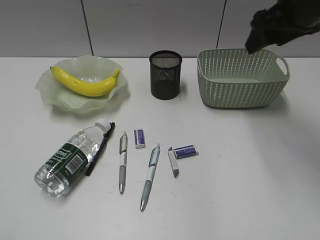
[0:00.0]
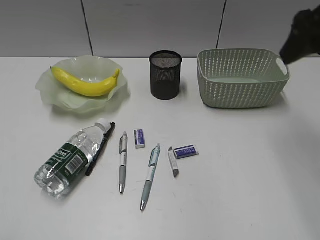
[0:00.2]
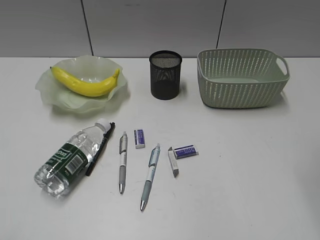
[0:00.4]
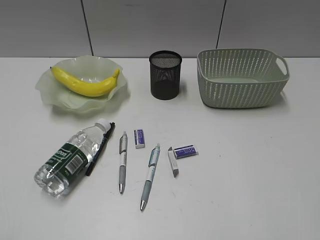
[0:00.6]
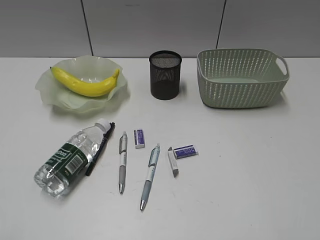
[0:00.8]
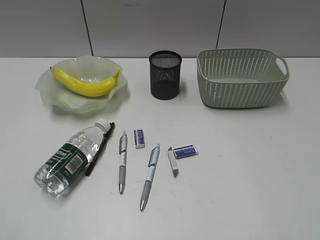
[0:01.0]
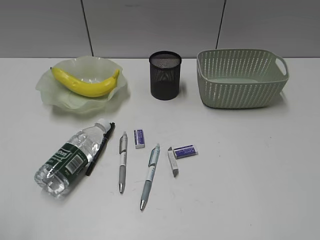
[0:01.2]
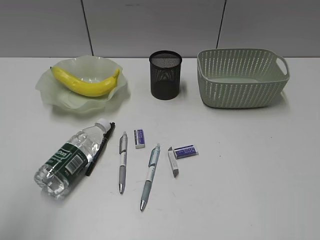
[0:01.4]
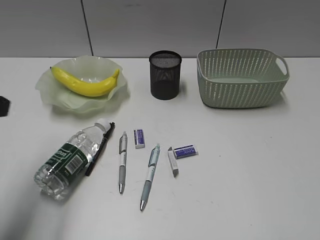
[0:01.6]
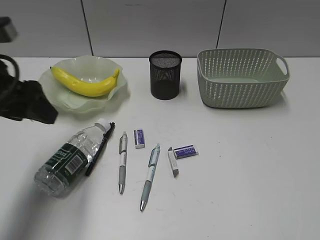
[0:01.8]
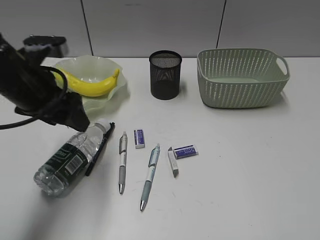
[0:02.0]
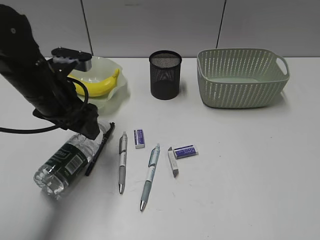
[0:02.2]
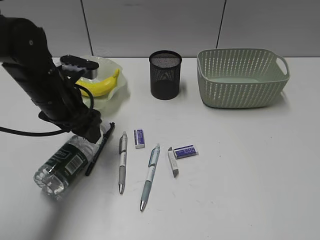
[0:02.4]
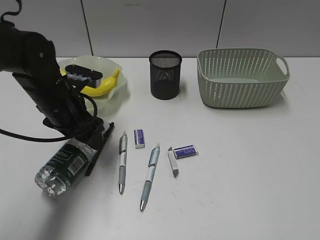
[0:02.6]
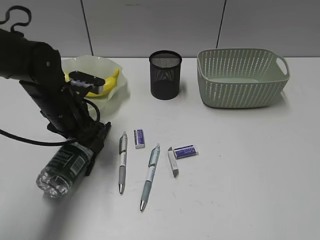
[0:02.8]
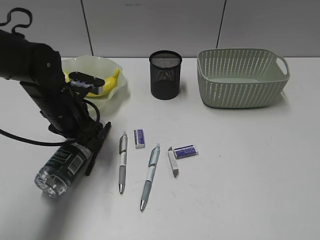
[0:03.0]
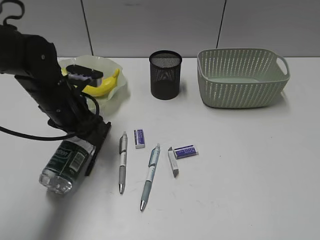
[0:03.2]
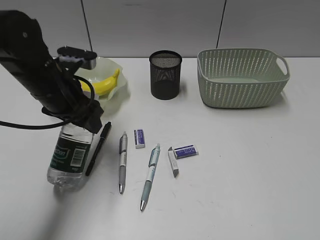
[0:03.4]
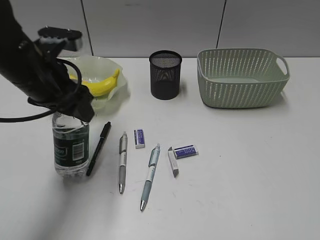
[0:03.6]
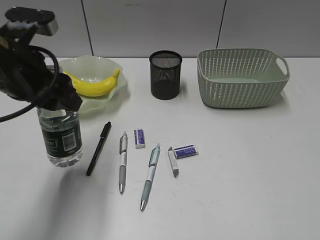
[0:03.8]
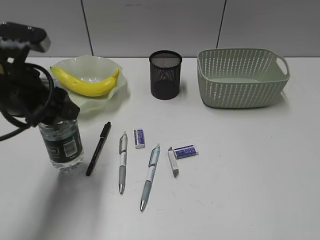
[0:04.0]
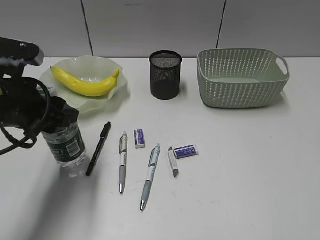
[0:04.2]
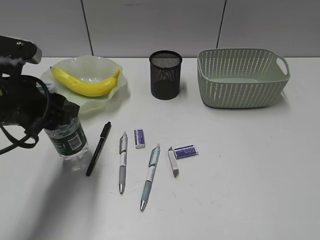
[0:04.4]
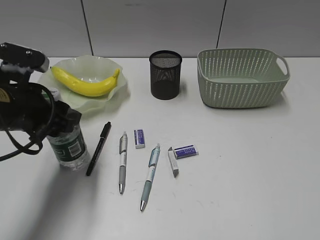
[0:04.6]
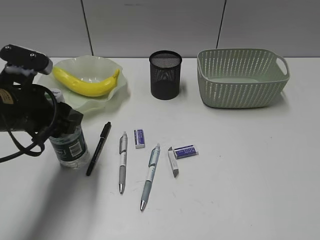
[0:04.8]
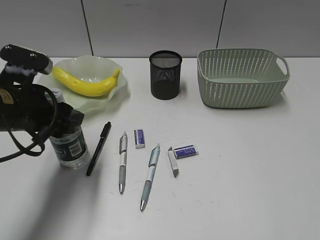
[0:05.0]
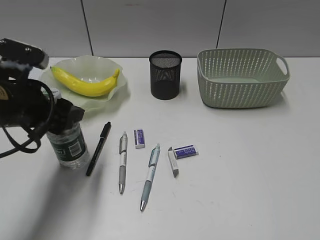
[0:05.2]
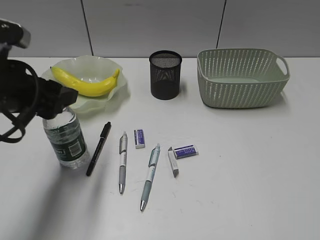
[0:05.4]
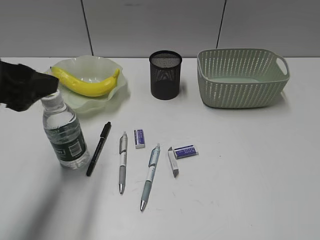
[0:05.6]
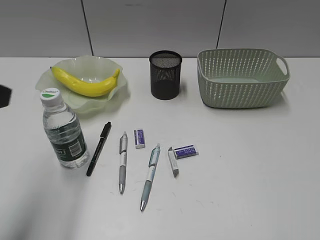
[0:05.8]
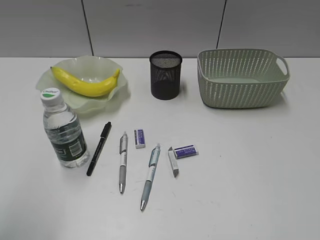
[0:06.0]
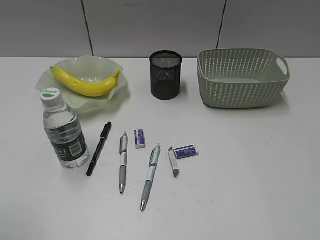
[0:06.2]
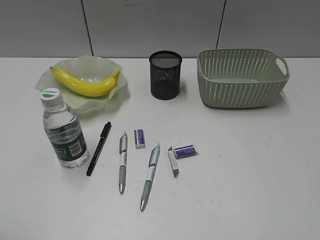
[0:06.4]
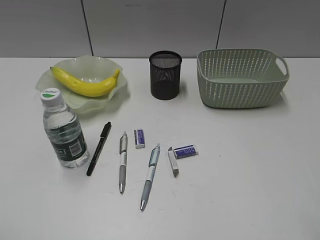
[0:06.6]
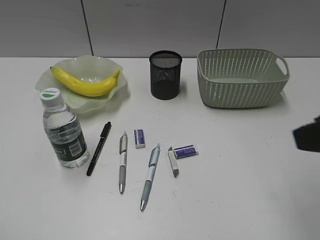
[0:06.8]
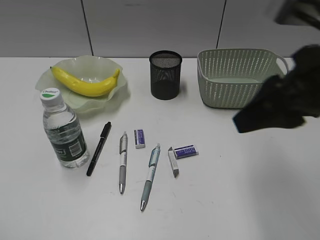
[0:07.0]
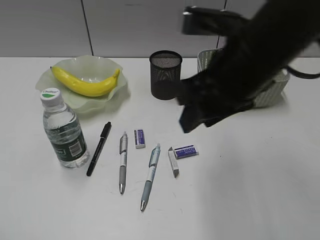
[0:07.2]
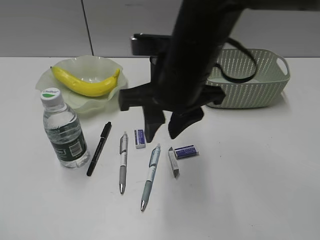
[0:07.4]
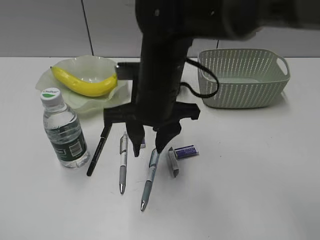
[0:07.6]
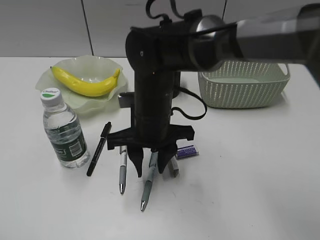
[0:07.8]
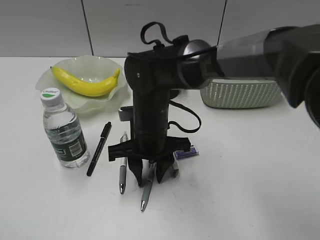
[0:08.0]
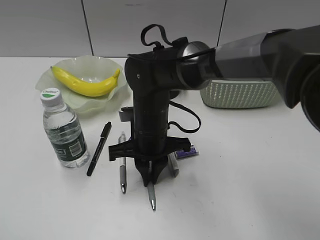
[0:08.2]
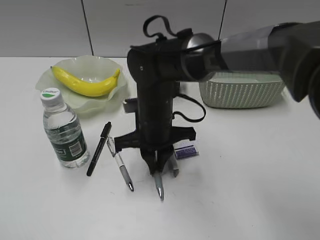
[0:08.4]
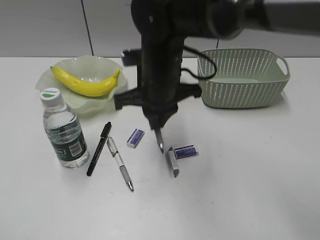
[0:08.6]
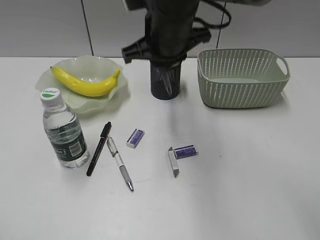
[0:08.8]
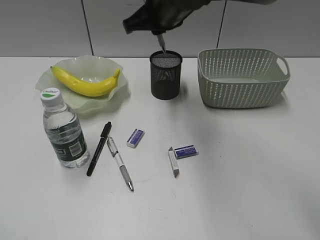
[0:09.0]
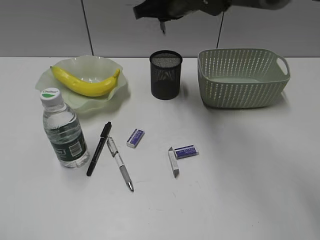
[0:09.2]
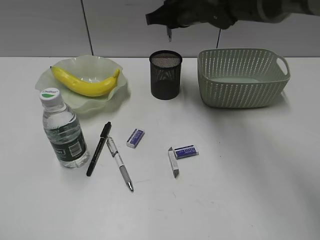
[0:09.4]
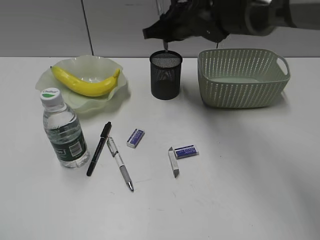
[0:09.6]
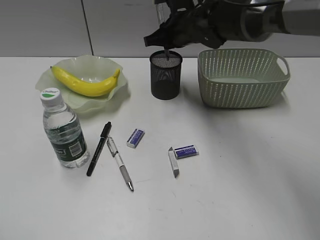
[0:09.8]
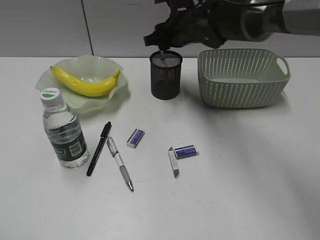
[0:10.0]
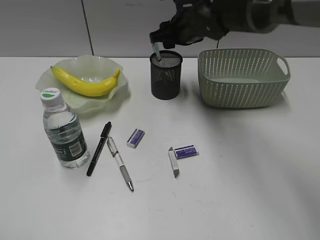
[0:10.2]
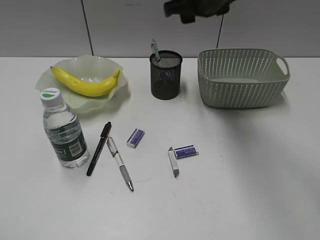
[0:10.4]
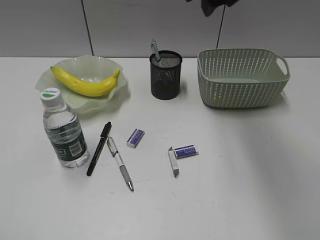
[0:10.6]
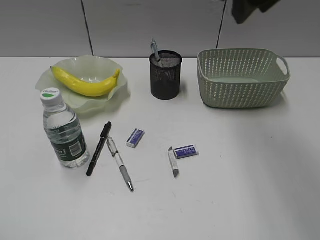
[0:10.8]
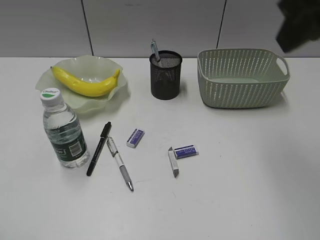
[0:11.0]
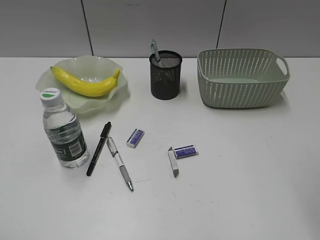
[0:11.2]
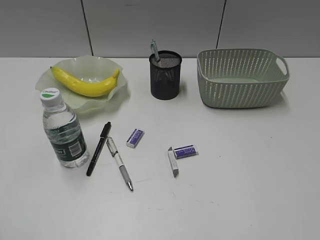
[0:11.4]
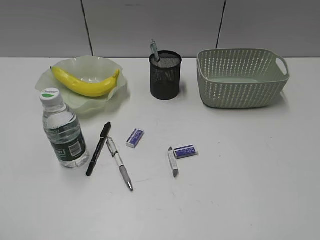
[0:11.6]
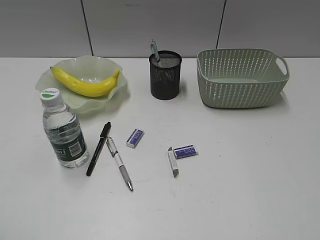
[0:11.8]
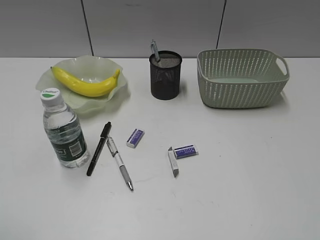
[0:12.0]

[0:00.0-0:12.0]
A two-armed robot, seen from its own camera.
Step, 0.0 to 2.8 s: Grasp the bottle with left gripper.
Step, 3.0 to 5.6 s: Stand the bottle with left gripper.
Step, 5.8 to 8.2 s: Grasp the blue pen with right gripper.
Step, 8.4 to 10.2 s: Place the blue pen in pen holder with right gripper.
0.0 to 1.6 s: The right gripper travels backward by some 35 cm; the left gripper shifts approximately 20 cm forward.
1.6 to 3.0 s: The left gripper moves downward, forward and to the right, approximately 25 cm.
3.0 to 4.4 s: The left gripper goes some 10 cm backward and upward.
4.4 to 6.0 s: The left gripper shifts approximately 20 cm backward, upward and to the left.
6.0 to 7.6 s: The right gripper is displaced to the left and forward by some 40 cm, and closes. The left gripper heads backward, covering roughly 10 cm.
7.6 to 9.0 s: The right gripper is displaced forward and upward by roughly 10 cm, and closes up.
9.0 to 10.4 s: The right gripper shifts some 5 cm to the right, and opens.
10.4 to 12.0 s: The right gripper shifts about 50 cm backward and to the right.

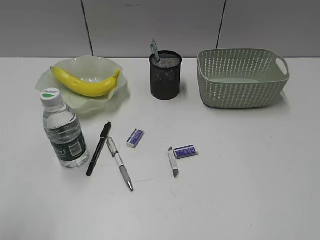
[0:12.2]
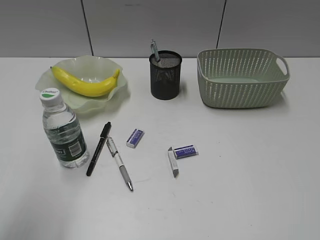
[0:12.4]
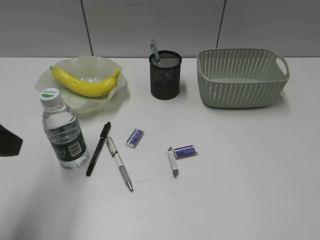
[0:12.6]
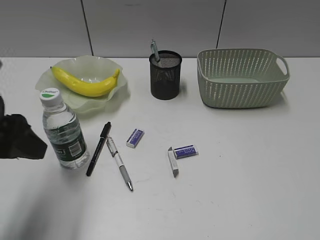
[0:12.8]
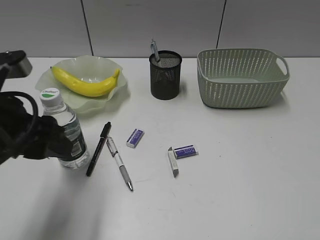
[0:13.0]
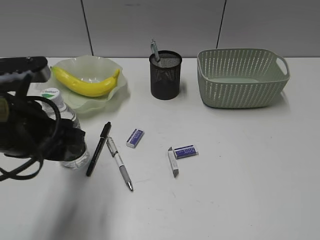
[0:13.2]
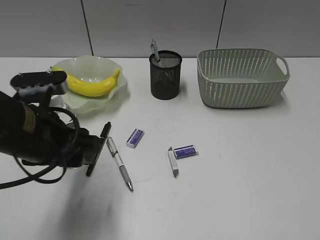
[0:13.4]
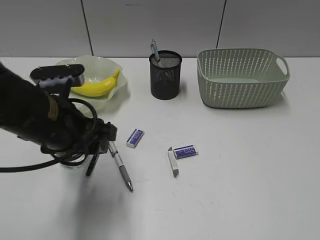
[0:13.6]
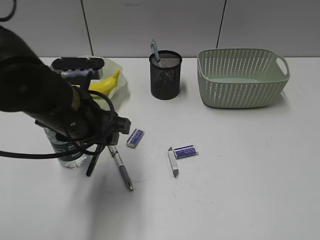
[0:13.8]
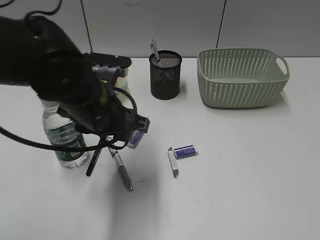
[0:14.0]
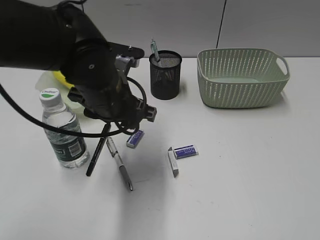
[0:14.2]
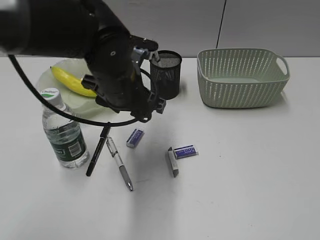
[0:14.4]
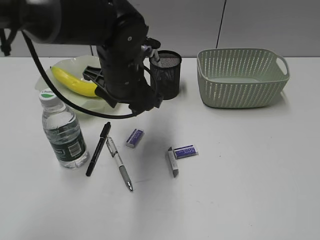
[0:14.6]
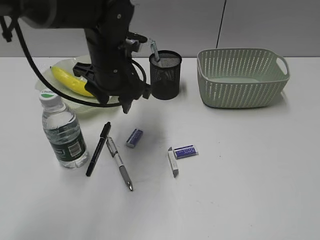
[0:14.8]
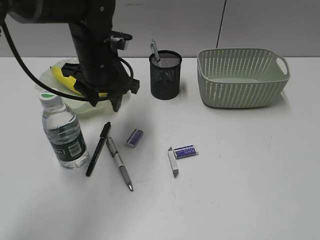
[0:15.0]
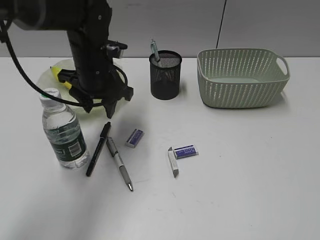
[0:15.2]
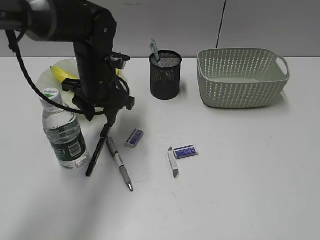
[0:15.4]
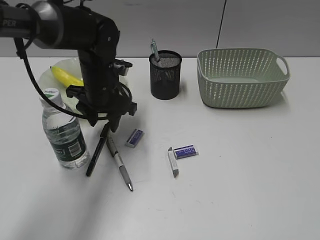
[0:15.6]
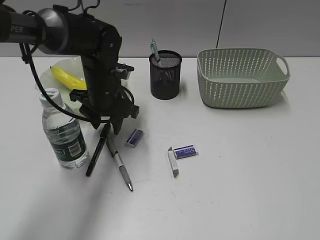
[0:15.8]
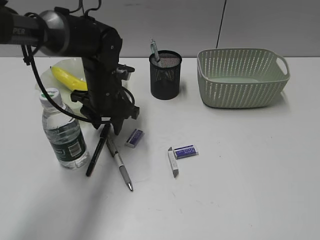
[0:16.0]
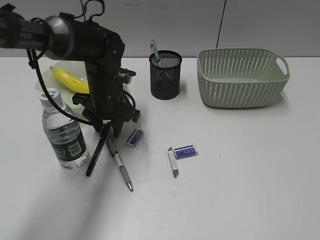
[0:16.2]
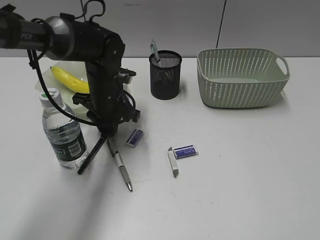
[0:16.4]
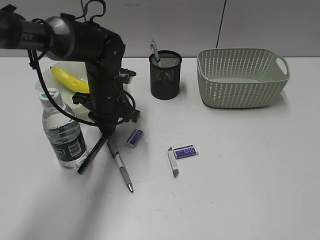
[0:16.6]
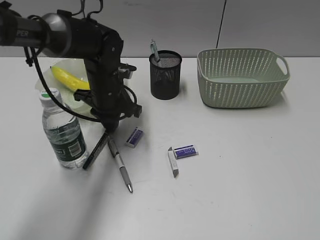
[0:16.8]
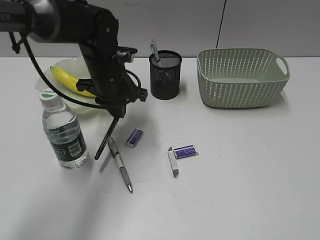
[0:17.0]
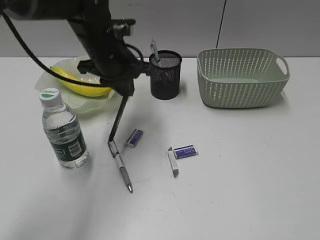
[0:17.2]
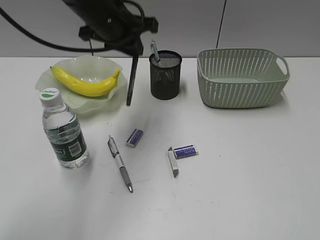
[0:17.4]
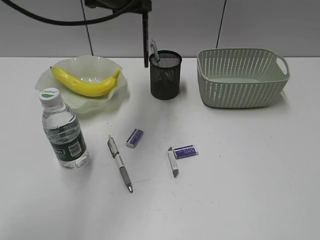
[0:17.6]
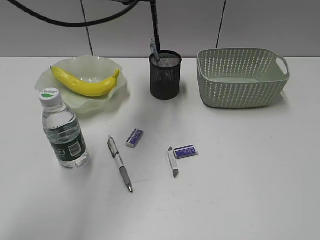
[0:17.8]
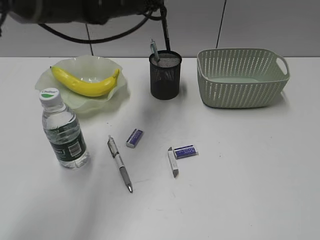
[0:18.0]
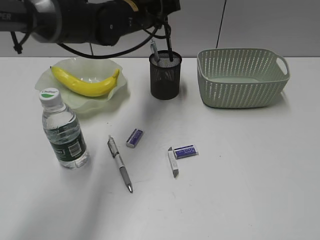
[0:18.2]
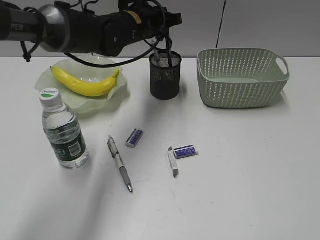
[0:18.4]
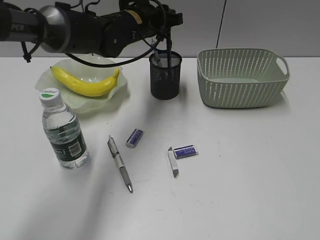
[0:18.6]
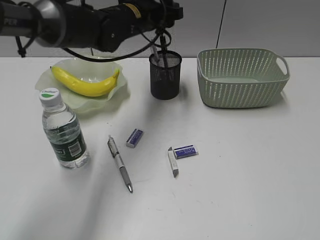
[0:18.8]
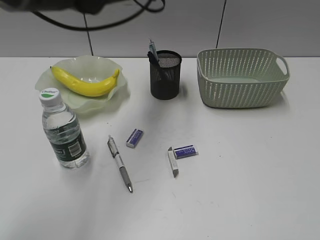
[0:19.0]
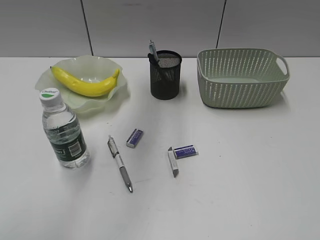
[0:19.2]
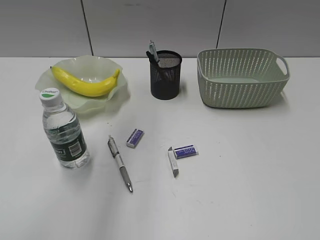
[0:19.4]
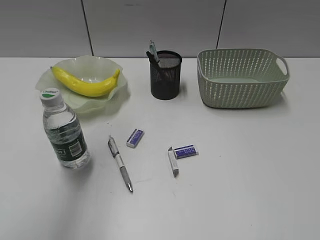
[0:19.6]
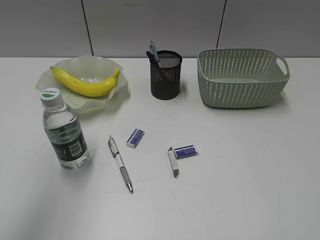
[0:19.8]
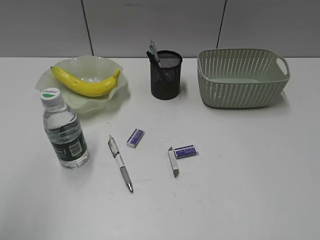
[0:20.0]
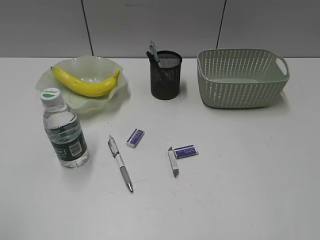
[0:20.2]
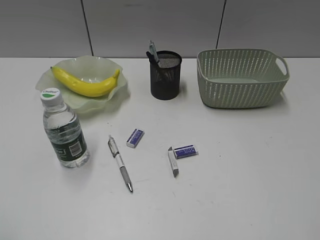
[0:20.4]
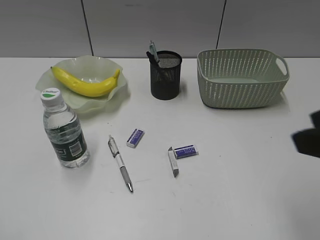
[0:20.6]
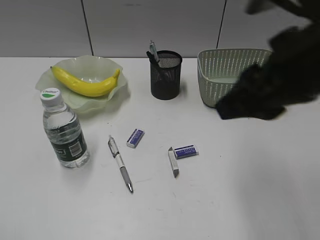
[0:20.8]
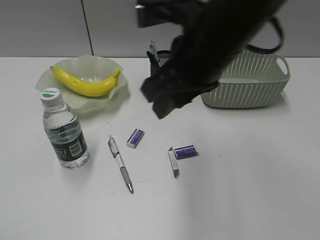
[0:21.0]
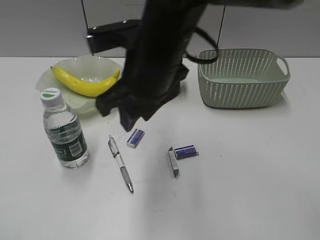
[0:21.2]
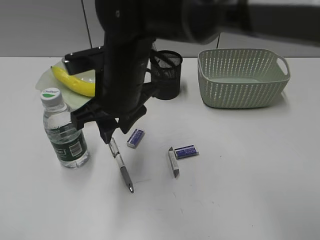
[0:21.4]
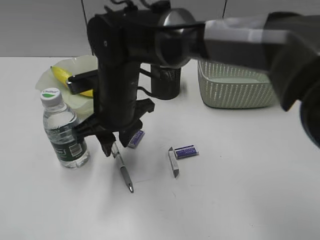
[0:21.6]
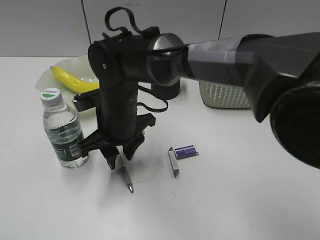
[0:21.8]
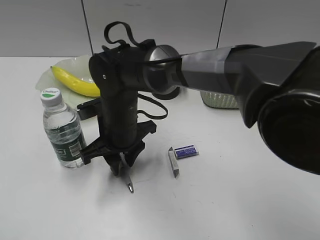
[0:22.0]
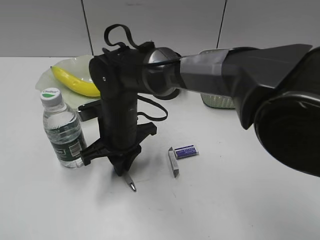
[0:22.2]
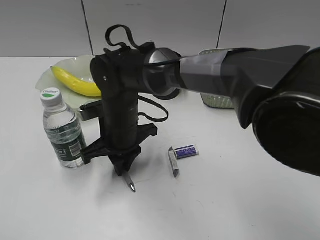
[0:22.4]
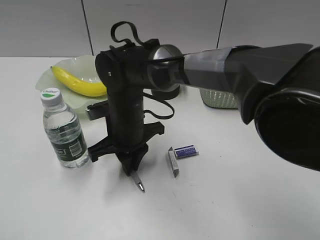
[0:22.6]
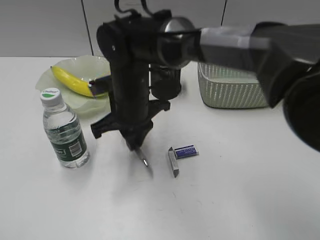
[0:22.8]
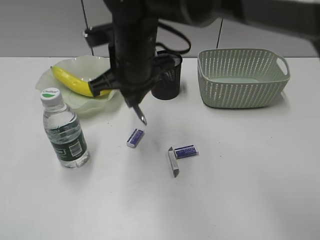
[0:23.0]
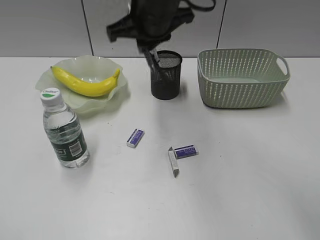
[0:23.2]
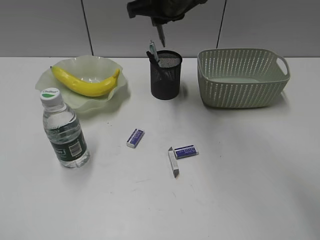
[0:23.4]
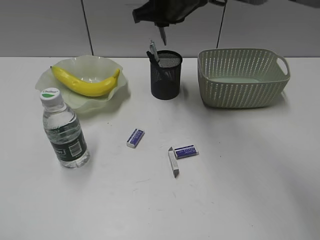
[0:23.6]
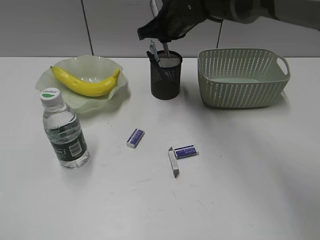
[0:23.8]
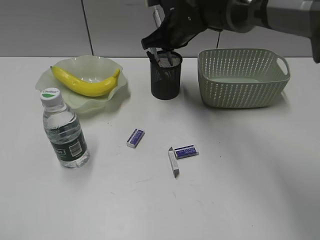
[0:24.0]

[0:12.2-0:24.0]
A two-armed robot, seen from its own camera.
Step, 12.2 to 16.6 s: Grasp the black pen with left gripper.
Step, 16.8 to 18.8 s: Place the black pen in pen holder with left gripper.
Step, 19.0 to 22.2 s: Grasp the gray pen with right gripper.
12.2 to 13.6 s: The left gripper travels forward, to the right and downward by some 25 cm.
13.6 to 15.2 s: The left gripper shifts about 15 cm forward.
15.2 to 16.6 s: The left gripper is displaced downward by approximately 5 cm, and closes.
16.6 to 18.2 s: The left gripper heads upward, forward and to the right, covering approximately 15 cm.
18.2 to 19.6 s: The left gripper goes some 35 cm upward, backward and to the left, and opens its fingers.
19.6 to 21.0 s: The left gripper travels backward, downward and to the left by roughly 30 cm. Meanwhile the right gripper shifts approximately 35 cm to the left and forward.
21.0 to 22.6 s: The right gripper heads downward and to the left, covering roughly 25 cm, and closes.
22.6 to 24.0 s: The right gripper shifts some 20 cm forward, upward and to the right.
